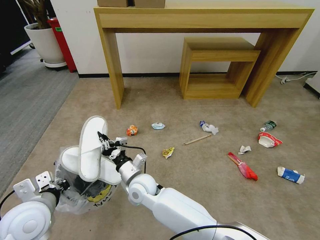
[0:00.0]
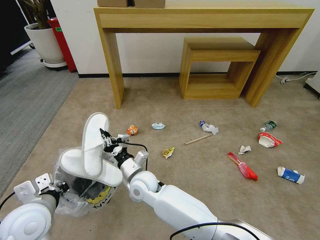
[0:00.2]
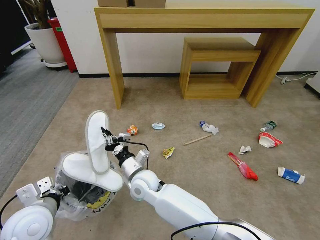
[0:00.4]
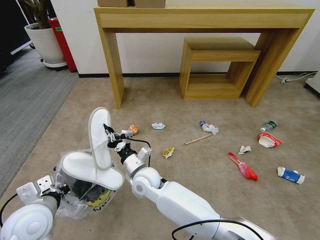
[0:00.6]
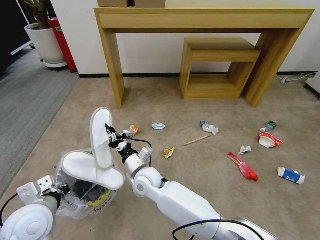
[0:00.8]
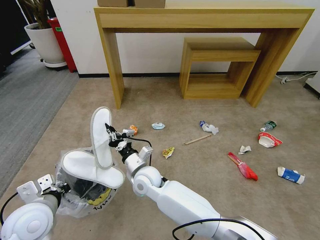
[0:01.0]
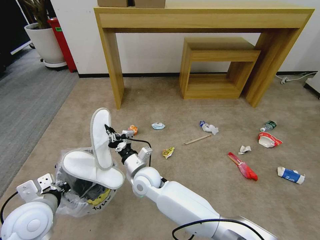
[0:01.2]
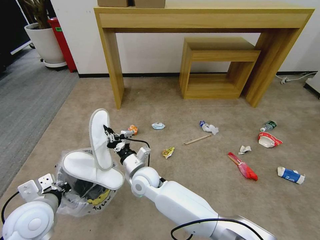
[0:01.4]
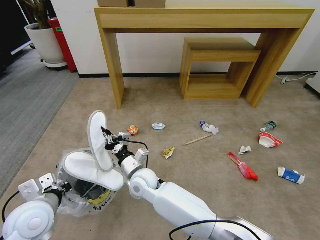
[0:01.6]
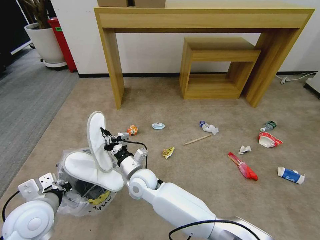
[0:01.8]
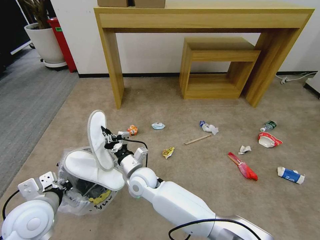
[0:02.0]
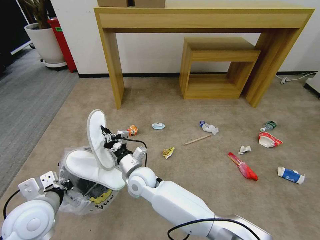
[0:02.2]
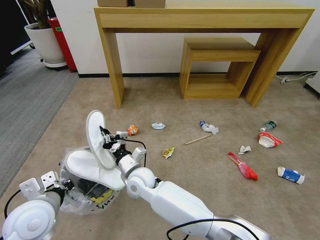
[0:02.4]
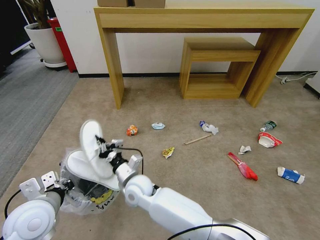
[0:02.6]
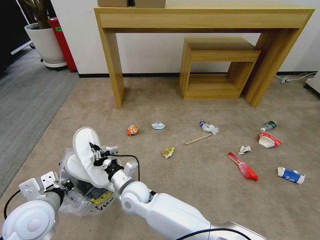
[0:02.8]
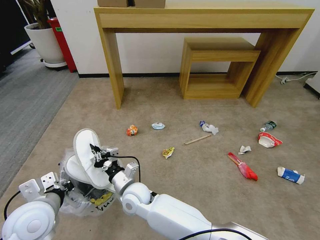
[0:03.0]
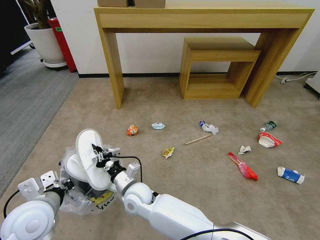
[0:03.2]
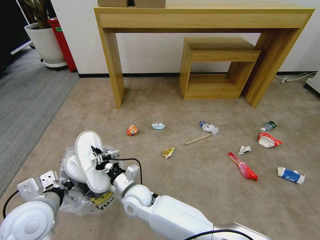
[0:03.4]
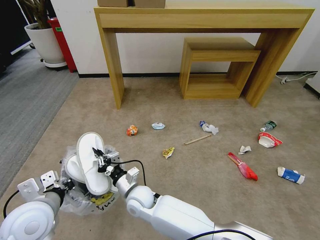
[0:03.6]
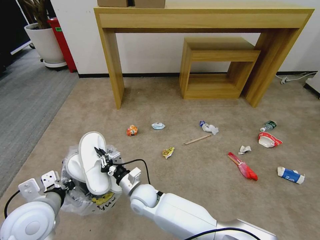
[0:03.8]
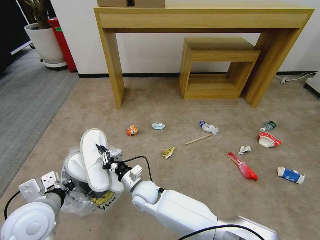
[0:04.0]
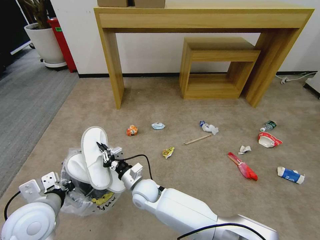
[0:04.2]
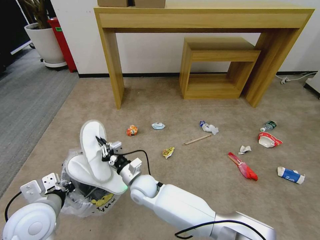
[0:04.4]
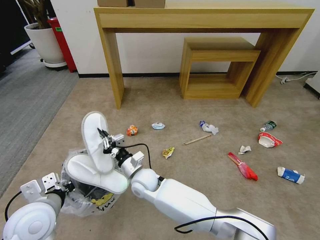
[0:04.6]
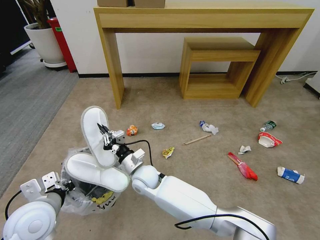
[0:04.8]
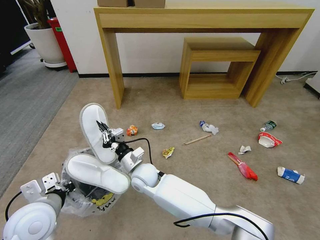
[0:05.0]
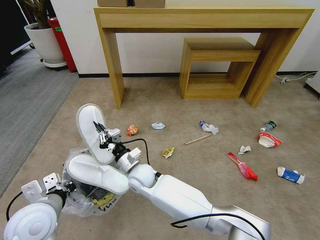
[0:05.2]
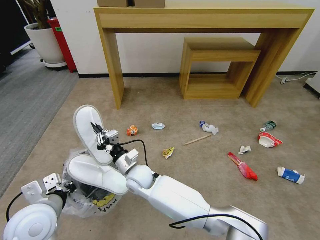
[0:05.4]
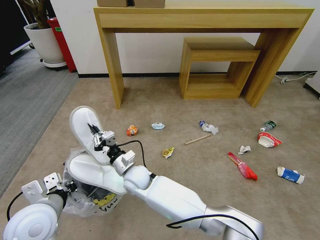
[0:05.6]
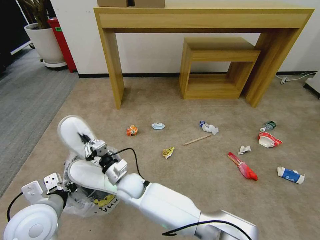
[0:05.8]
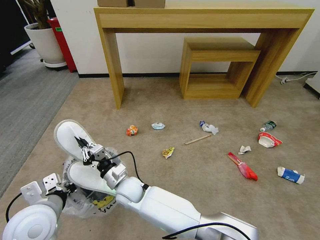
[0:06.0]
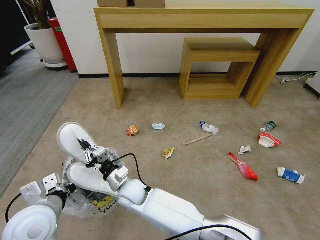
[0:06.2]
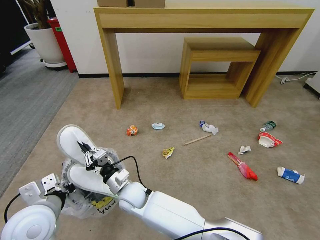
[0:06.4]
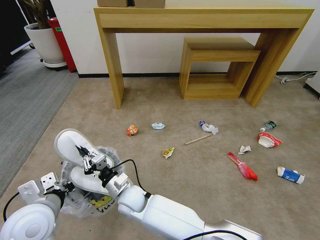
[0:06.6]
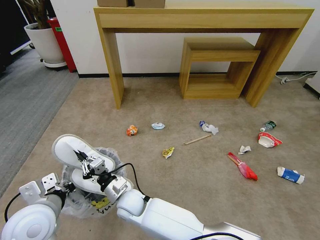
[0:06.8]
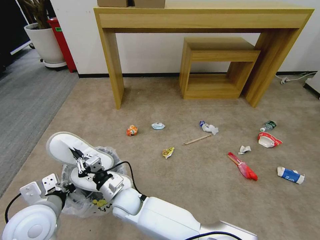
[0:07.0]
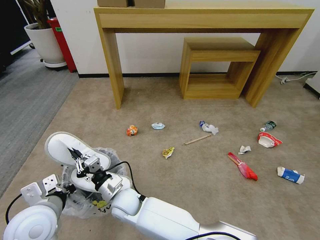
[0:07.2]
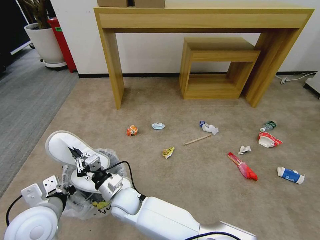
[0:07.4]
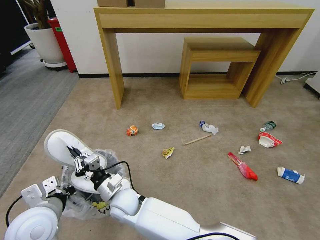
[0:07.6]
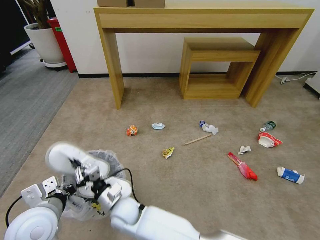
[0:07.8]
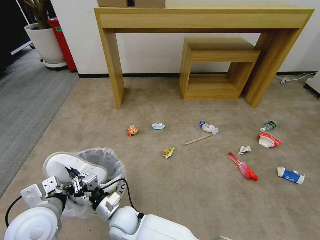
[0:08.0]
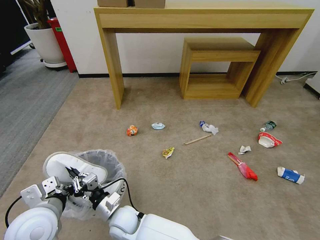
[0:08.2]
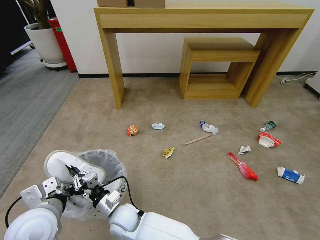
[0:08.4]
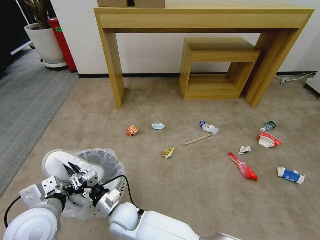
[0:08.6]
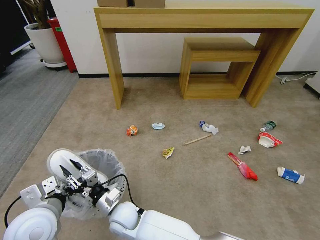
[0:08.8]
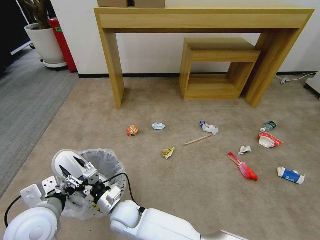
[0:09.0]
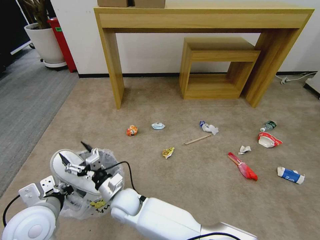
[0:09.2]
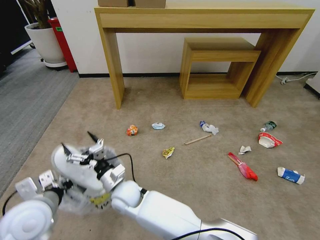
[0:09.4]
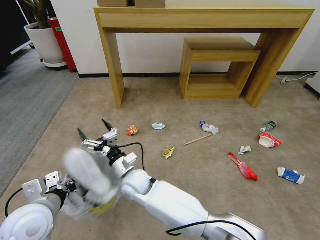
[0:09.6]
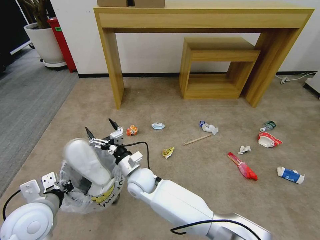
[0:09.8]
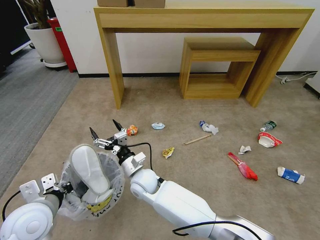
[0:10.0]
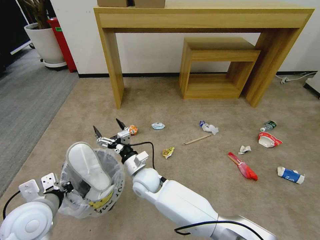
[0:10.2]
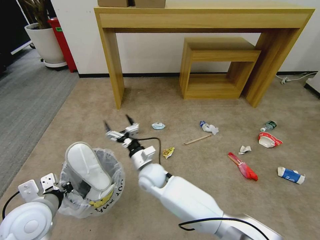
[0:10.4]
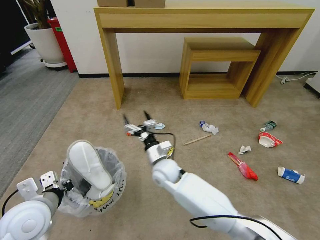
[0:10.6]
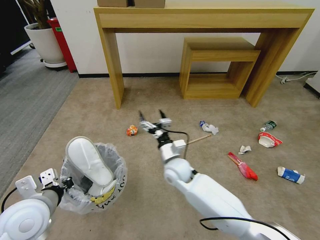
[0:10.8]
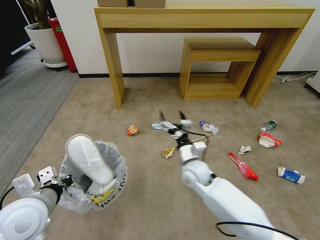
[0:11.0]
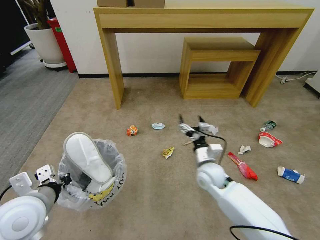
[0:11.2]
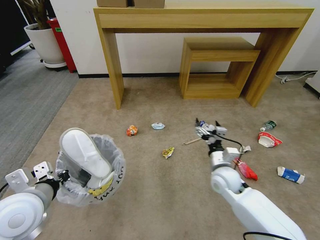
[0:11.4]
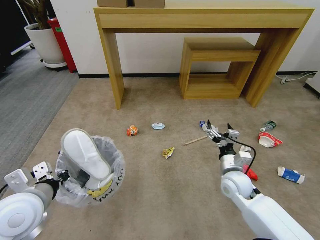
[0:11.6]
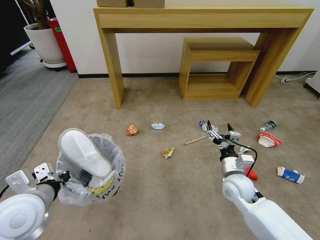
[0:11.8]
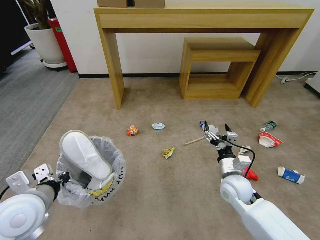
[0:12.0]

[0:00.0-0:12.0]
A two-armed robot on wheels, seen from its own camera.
Task of the whole recording: Pick up the trash bin and place the garbage on the floor into it.
0:00.0 to 0:01.6: The grippers stay close to where they were, moving slightly.
0:01.6 to 0:03.0: The right gripper shifts by some 5 cm.
0:04.4 to 0:06.0: The right gripper is displaced to the left by roughly 5 cm.
0:06.0 to 0:07.6: The grippers move only a little.
0:07.6 to 0:09.0: The right gripper opens.
0:09.0 to 0:10.4: The right gripper goes some 15 cm forward, to the right and upward, and opens its fingers.
0:10.4 to 0:12.0: The right gripper shifts some 30 cm to the right.

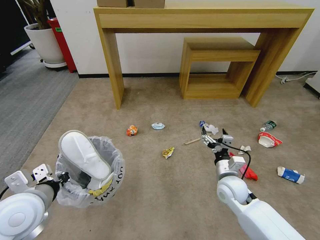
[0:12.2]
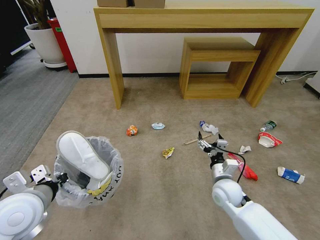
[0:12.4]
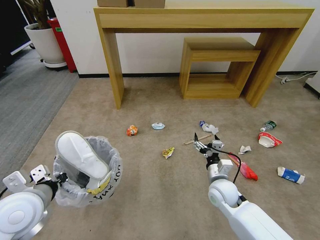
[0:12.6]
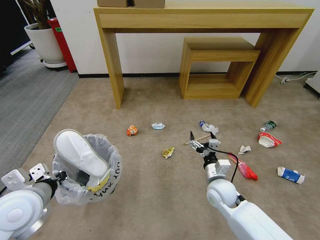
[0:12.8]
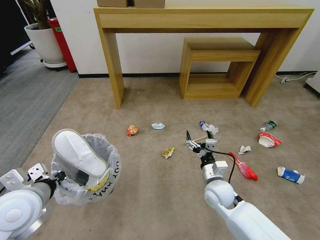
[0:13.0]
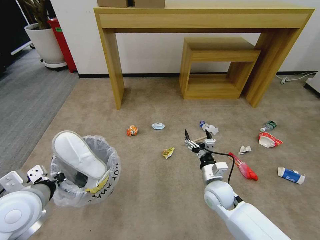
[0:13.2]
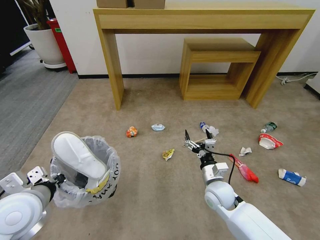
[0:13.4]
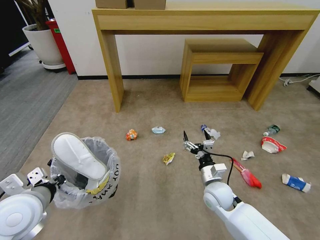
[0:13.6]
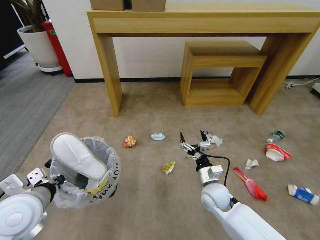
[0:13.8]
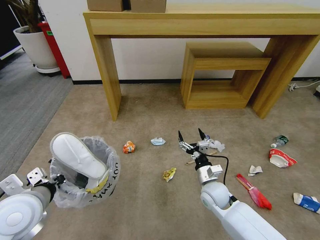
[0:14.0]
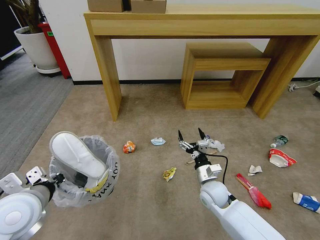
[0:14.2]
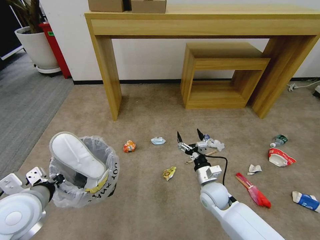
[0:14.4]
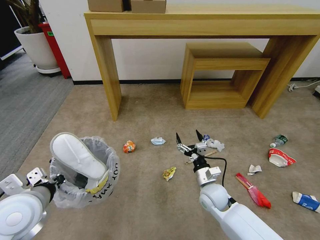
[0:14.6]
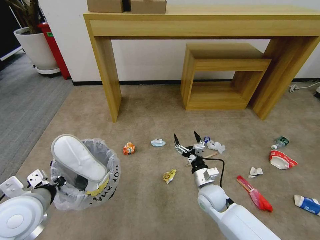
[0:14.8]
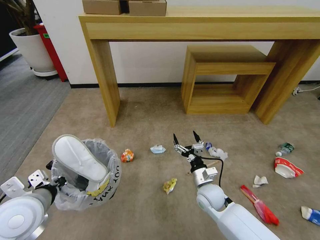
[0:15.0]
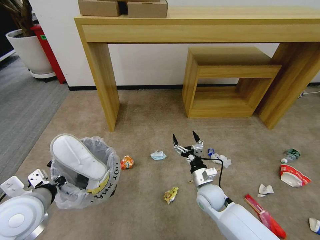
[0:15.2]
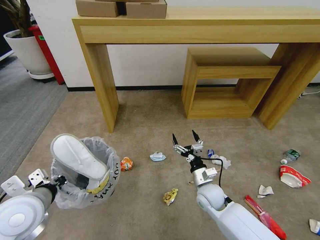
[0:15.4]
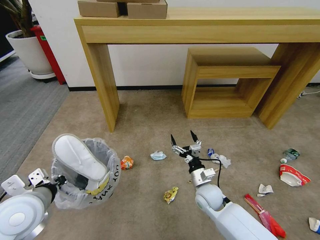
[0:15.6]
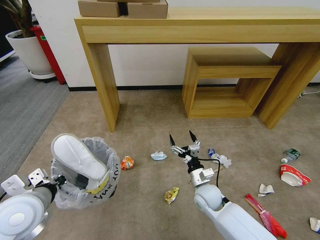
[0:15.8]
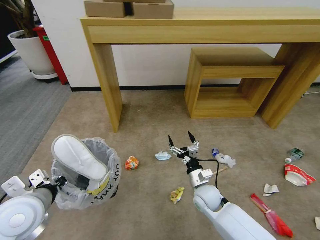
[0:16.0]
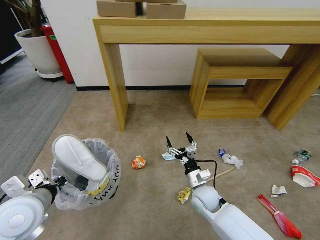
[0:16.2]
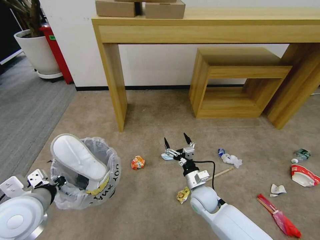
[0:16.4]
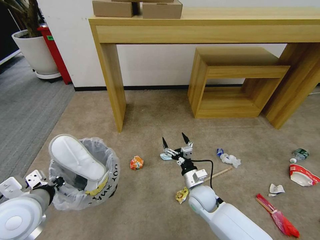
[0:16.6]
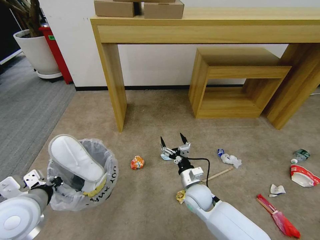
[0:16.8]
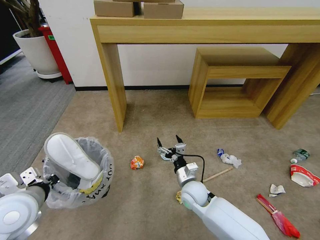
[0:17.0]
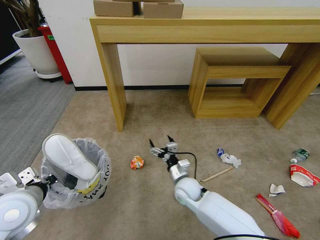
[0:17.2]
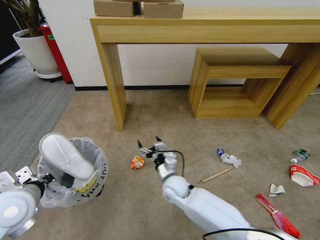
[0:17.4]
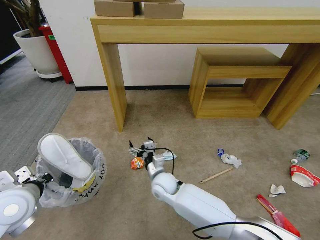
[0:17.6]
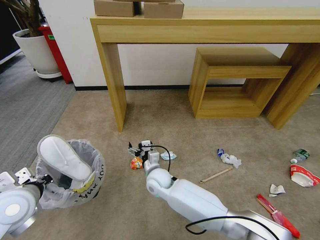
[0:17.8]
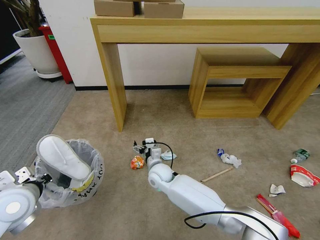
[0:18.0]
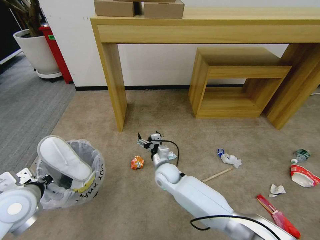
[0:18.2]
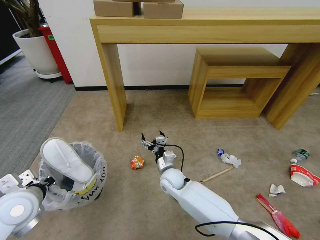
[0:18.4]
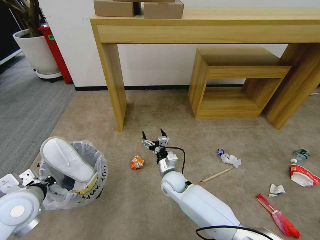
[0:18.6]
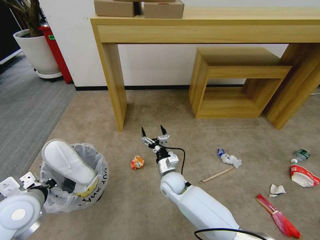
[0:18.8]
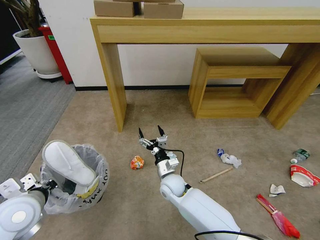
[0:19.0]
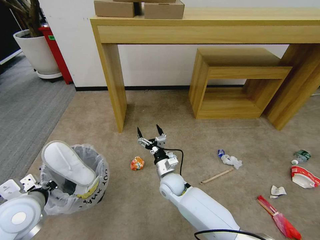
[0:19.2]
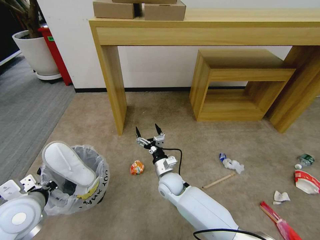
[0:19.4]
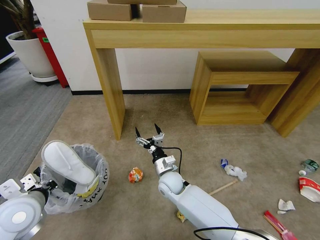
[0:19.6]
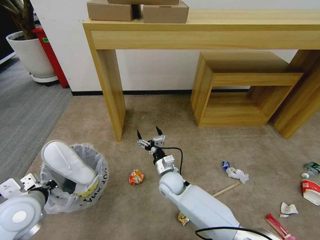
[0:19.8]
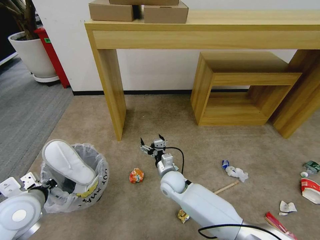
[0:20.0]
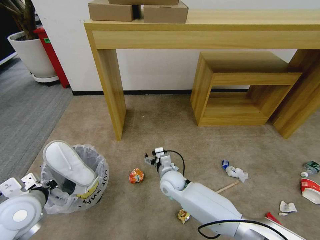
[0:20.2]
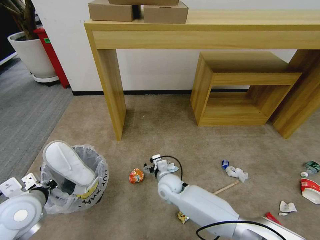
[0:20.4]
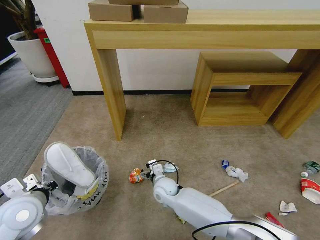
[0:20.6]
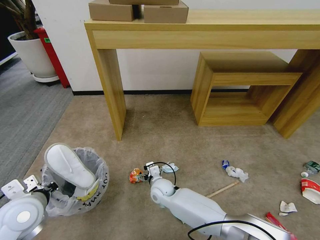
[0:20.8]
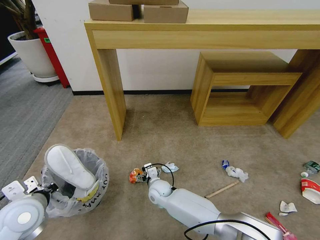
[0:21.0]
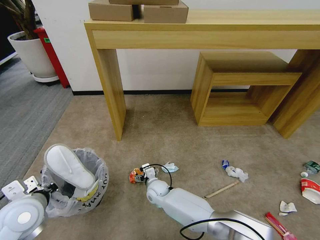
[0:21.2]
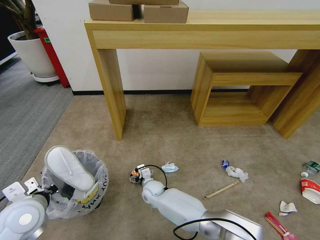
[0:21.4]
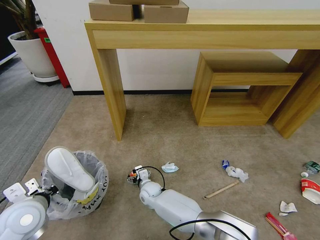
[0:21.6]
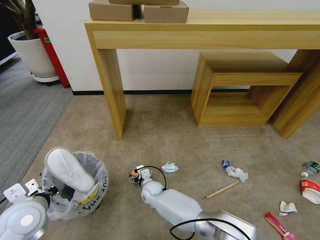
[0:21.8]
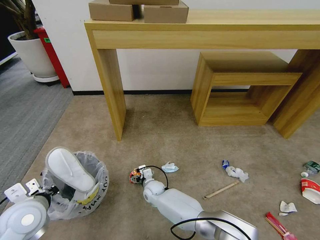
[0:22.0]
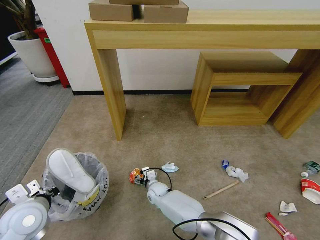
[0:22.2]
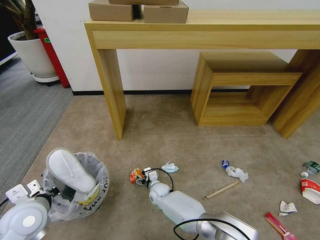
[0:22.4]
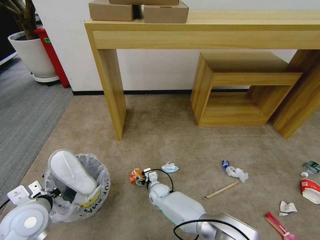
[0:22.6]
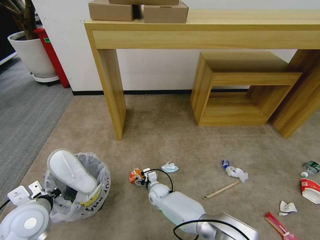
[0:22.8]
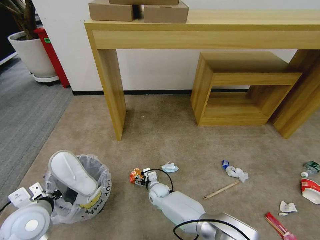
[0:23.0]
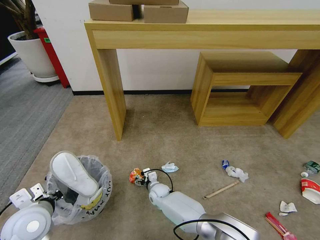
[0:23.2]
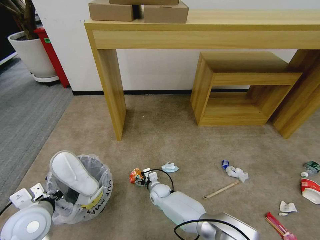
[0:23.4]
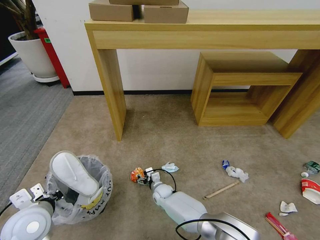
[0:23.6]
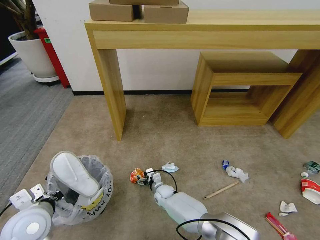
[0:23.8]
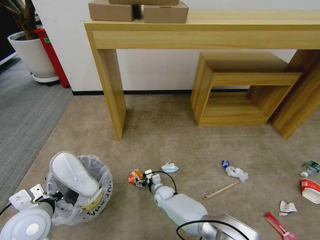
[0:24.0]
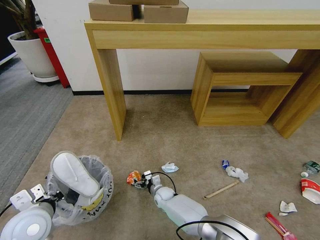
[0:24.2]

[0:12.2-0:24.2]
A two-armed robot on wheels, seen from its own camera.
Task of the whole recording: Pick up the trash bin and place the garbage on the floor into it.
0:12.2 to 0:13.8: The right gripper is displaced to the left by about 5 cm.
0:15.2 to 0:16.6: The grippers make only small movements.
0:16.6 to 0:18.2: The left gripper moves approximately 5 cm, while the right gripper shifts some 15 cm to the left and forward.
0:19.8 to 0:21.2: The right gripper moves downward and to the left, some 10 cm.
0:21.2 to 0:22.6: The right gripper shifts roughly 5 cm downward.
0:22.6 to 0:24.2: There are only small adjustments of the grippers.
